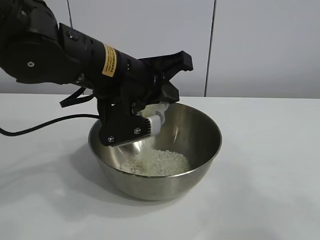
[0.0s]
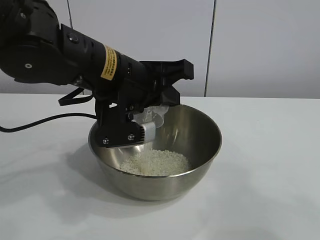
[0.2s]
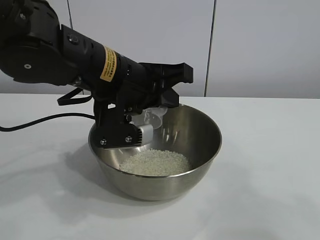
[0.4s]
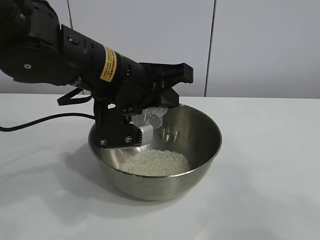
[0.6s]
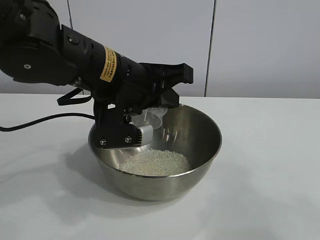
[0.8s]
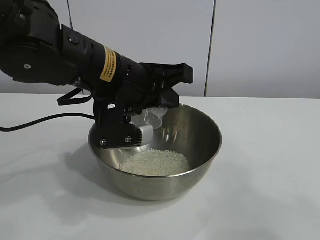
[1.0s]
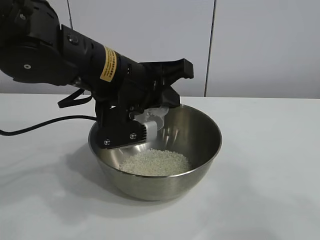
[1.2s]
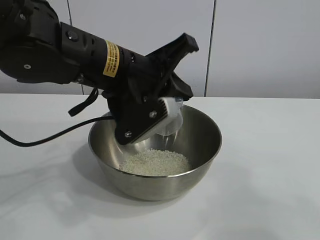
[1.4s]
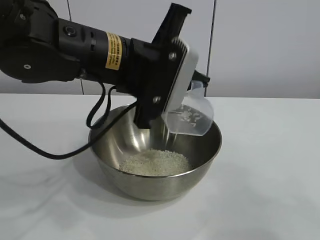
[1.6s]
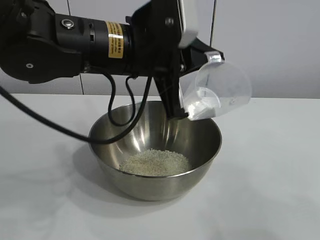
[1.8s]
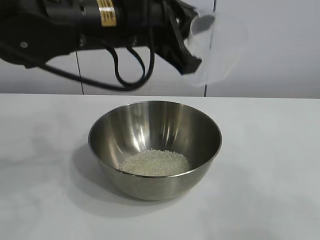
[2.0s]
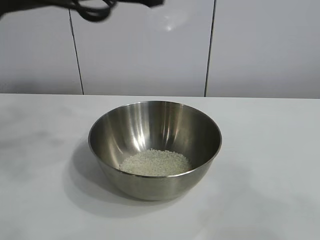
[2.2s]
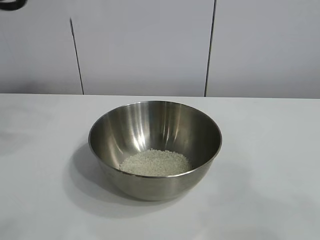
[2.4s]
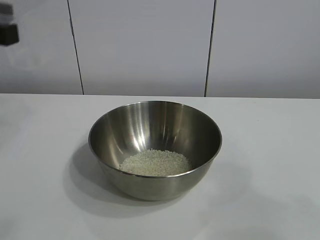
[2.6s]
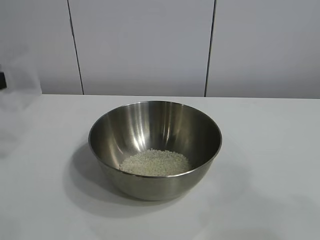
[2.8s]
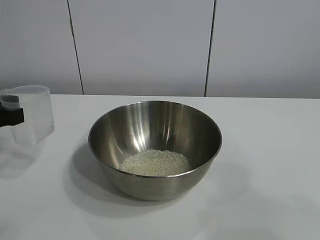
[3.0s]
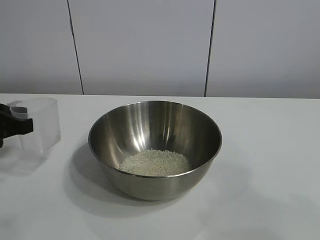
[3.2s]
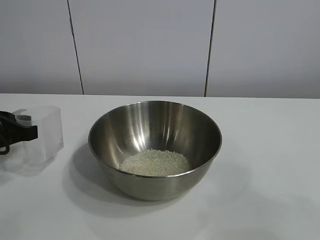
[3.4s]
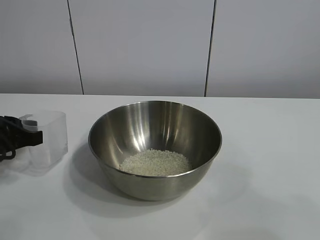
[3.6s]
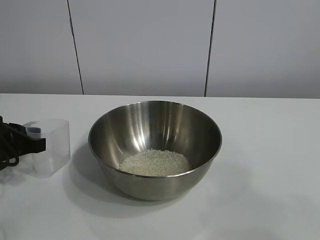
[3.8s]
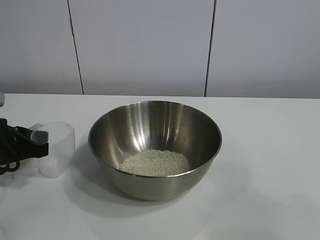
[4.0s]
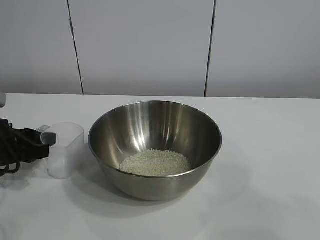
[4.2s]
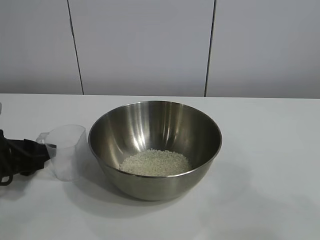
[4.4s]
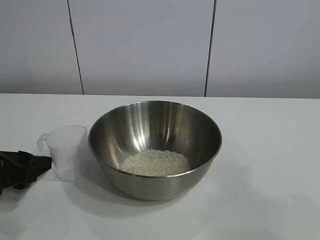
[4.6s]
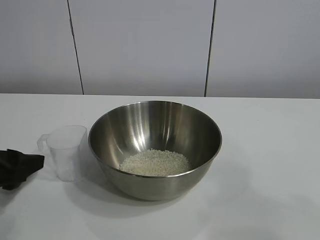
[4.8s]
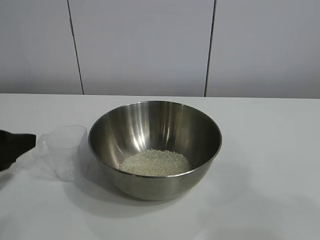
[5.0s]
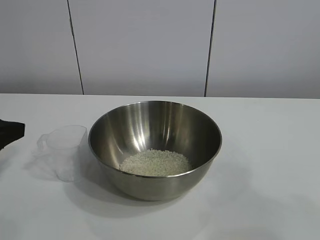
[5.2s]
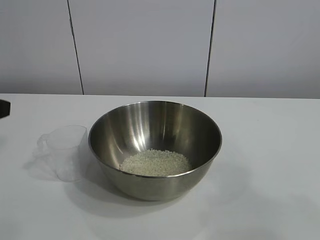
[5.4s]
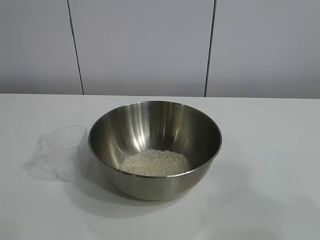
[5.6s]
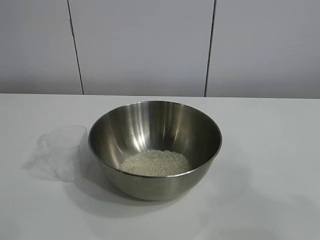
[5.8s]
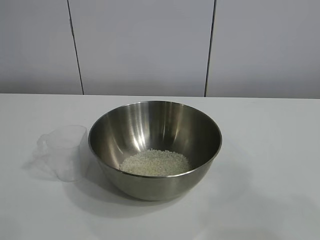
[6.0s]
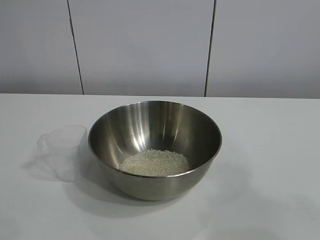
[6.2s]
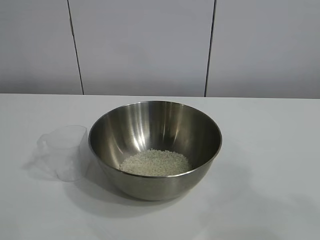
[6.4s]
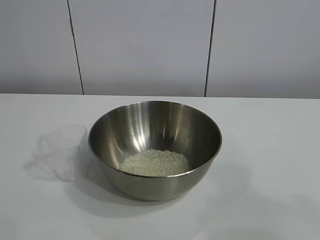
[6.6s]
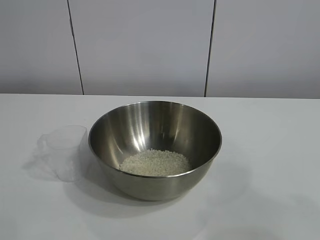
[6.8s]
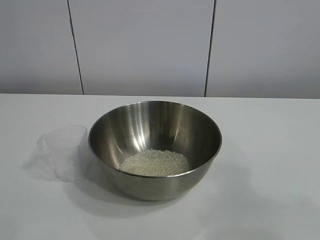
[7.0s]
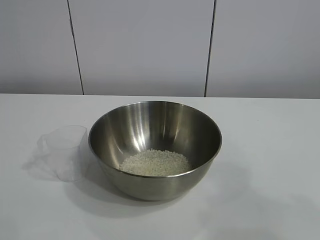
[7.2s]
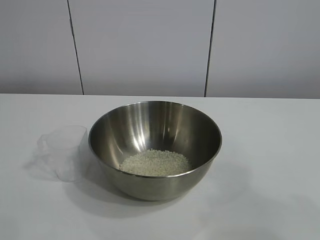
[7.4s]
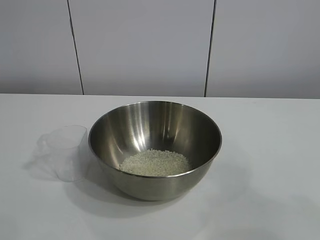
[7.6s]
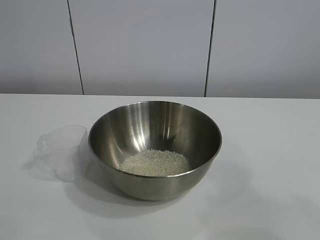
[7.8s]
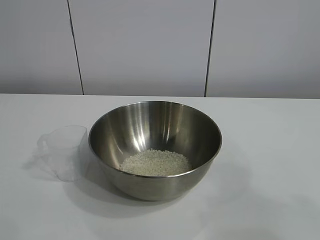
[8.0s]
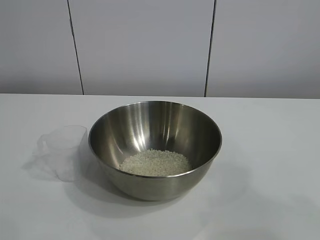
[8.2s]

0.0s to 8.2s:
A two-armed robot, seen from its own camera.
Task of the whole recording: the right gripper grasp the rice container and place it in the center of the table, the left gripper grasp the rice scoop and pour the rice into the rice container.
Step, 1.0s to 4.4s: Place the cup on the table with the left gripper.
